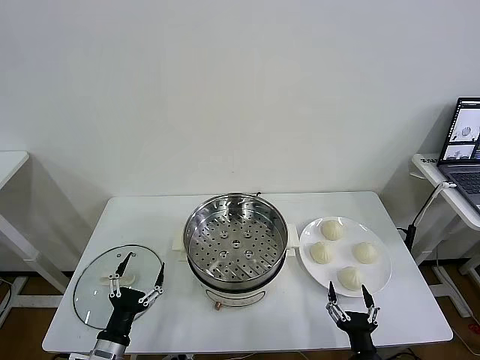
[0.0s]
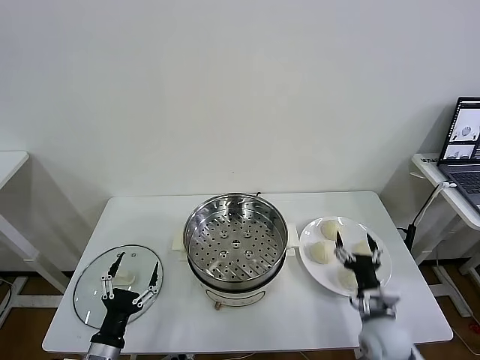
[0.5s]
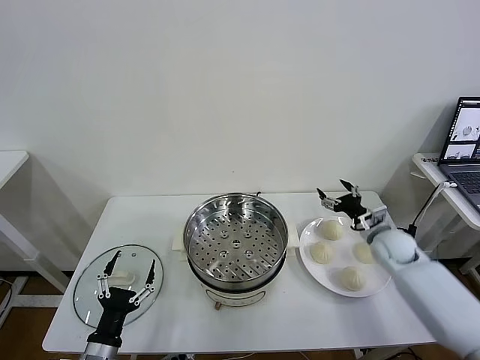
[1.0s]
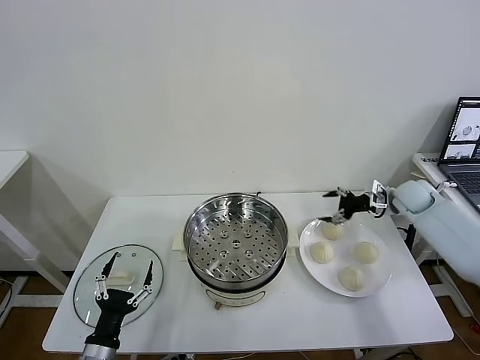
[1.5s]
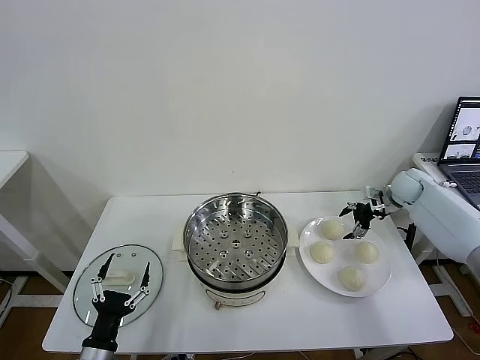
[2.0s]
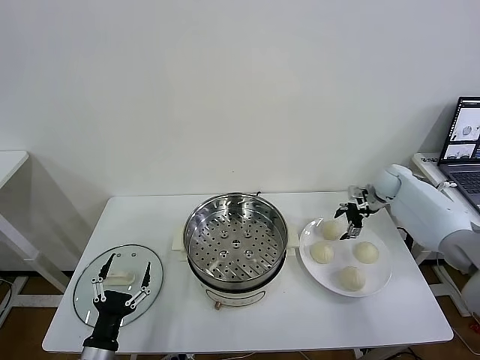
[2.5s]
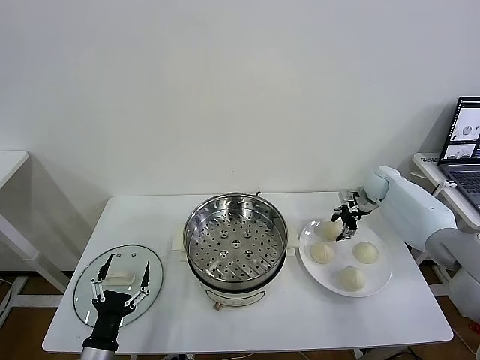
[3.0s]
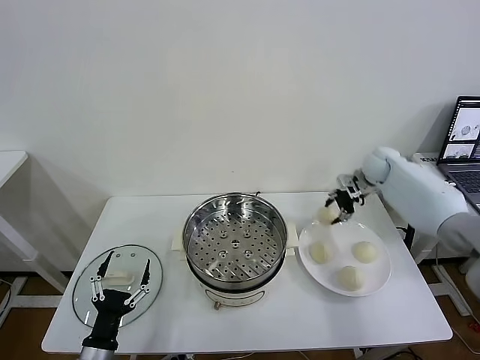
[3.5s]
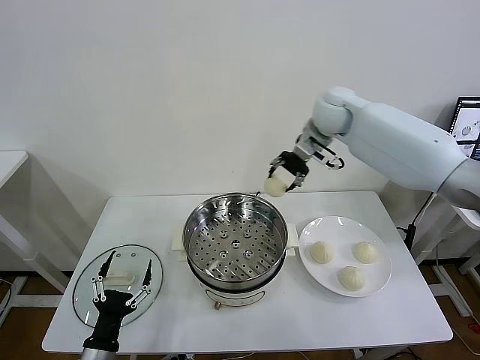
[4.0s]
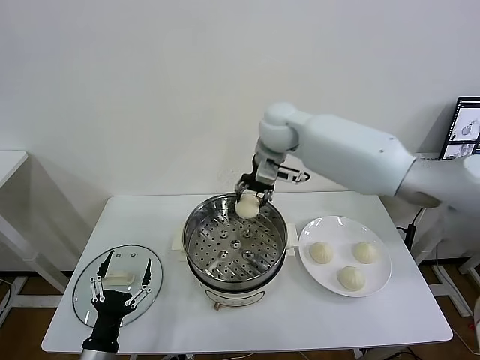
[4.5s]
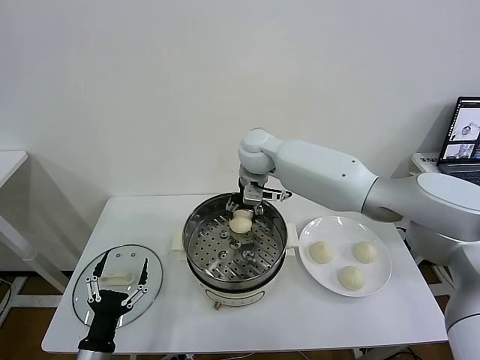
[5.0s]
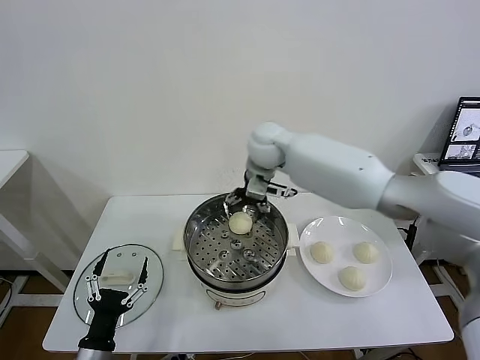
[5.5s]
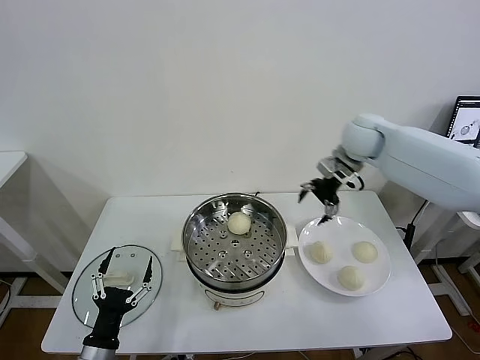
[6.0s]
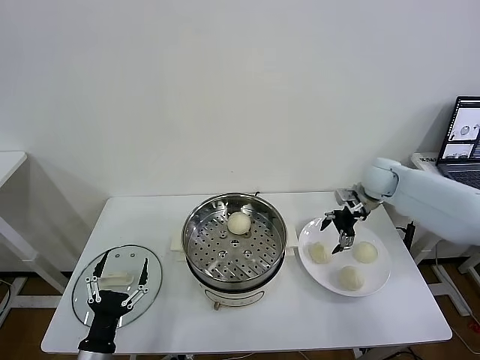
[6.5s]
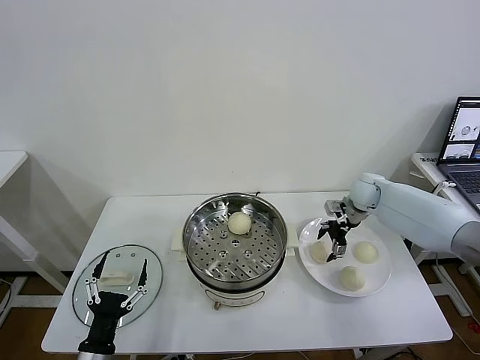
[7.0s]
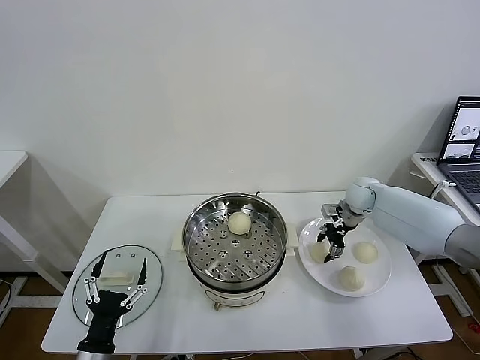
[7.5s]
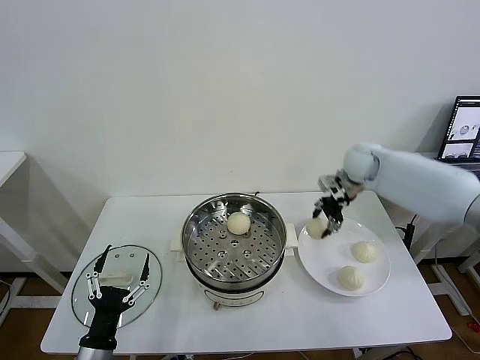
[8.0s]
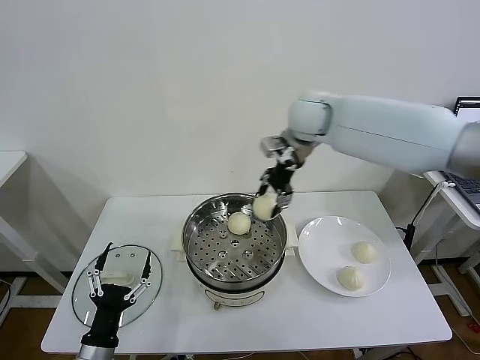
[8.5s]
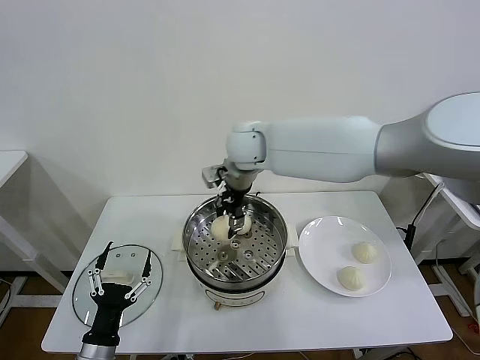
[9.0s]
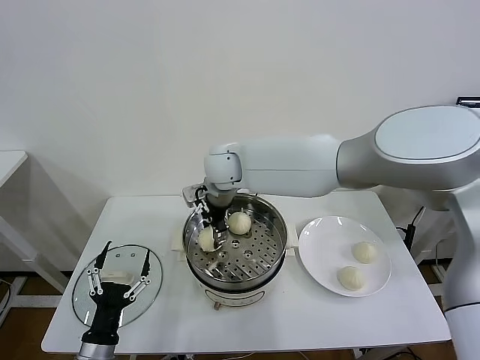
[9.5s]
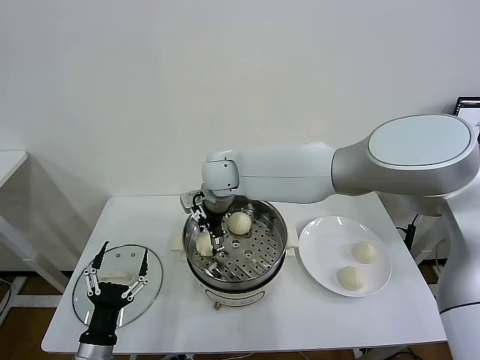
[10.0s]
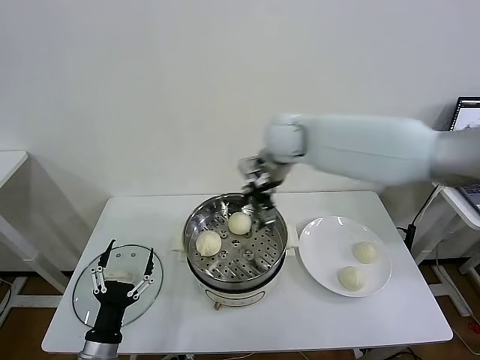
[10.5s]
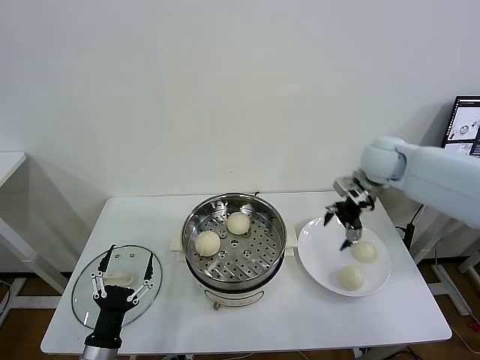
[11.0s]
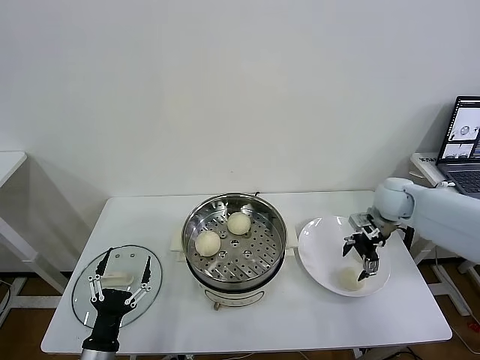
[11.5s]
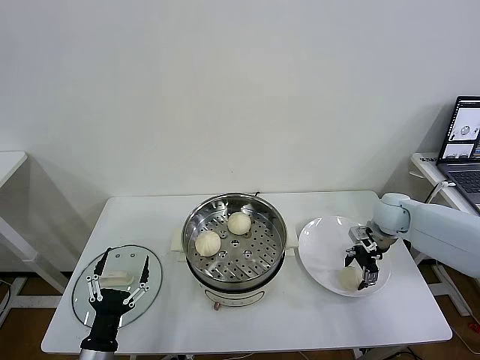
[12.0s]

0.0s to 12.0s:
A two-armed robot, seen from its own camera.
Task of the whole recording: take steamed baozi put them in steamer then cover it.
Step, 0.0s to 3.0s: Grasp the baozi in the plate with right gripper.
Step, 3.5s to 5.0s: Place the baozi on the steamer with right gripper.
Step, 6.0s to 7.5s: Grasp the baozi in the plate with right gripper.
Step, 8.0s to 10.0s: Place the baozi on the steamer with right gripper.
2.0s to 4.0s: The right gripper is displaced to the left and upward by about 35 cm, and closes.
4.0s to 6.0s: The right gripper goes approximately 15 cm to the right and downward, and opens.
6.0s to 8.0s: The right gripper travels downward and back again, some 15 cm each way, and closes.
8.0s to 10.0s: The right gripper moves to the left, some 30 cm, and opens.
10.0s to 12.0s: The right gripper shifts roughly 40 cm to the right.

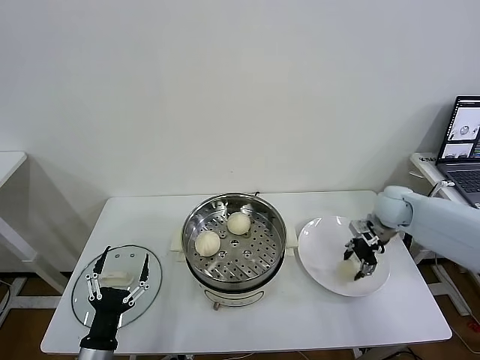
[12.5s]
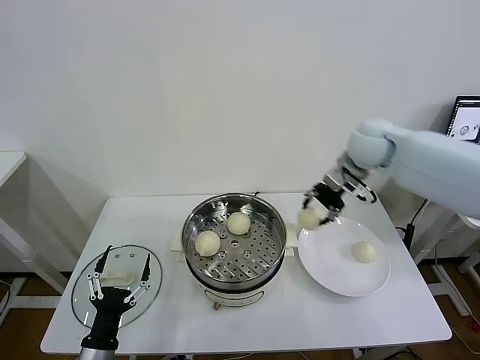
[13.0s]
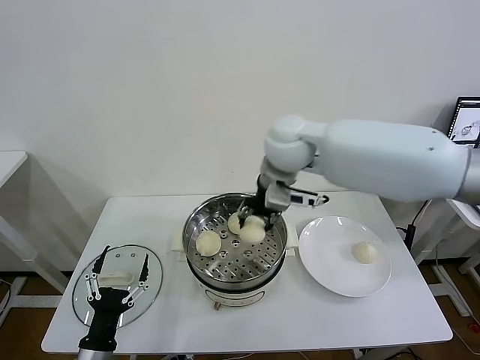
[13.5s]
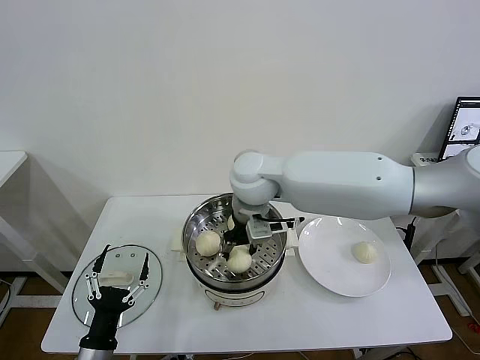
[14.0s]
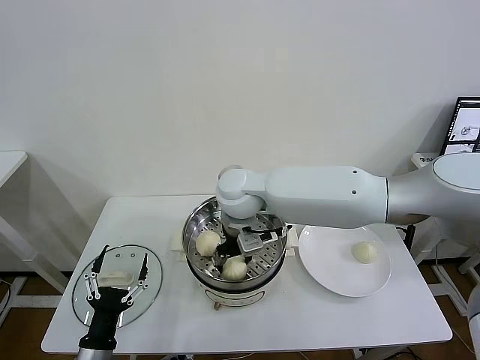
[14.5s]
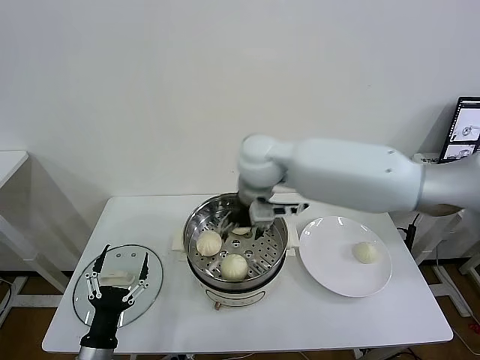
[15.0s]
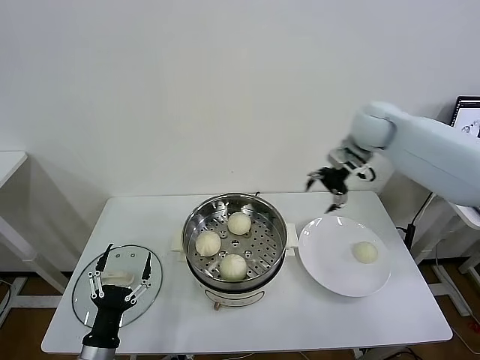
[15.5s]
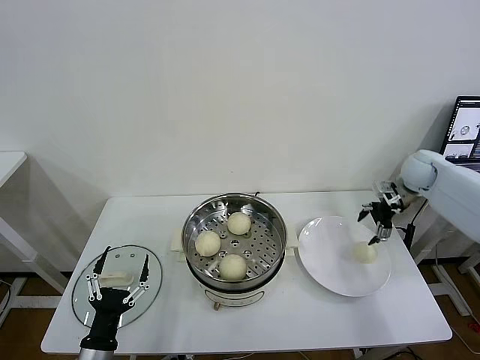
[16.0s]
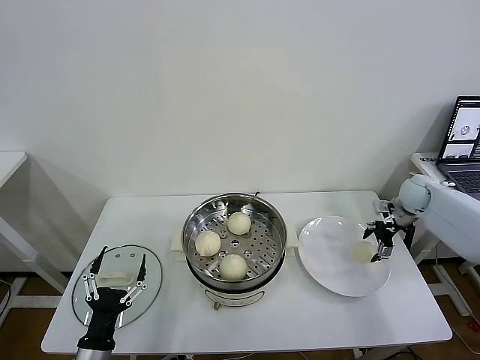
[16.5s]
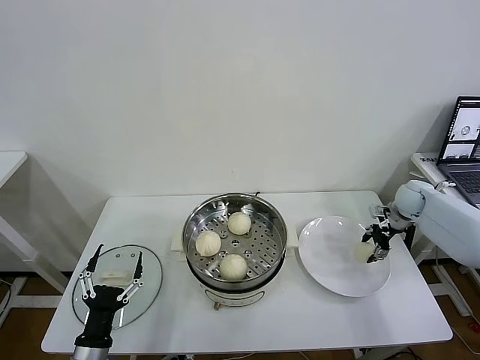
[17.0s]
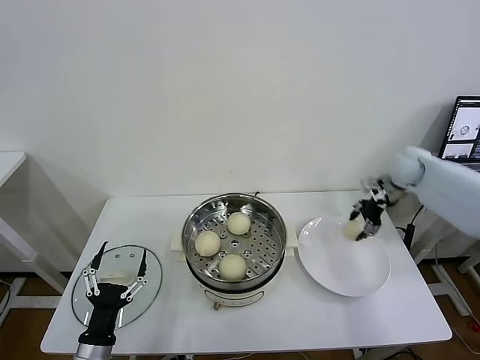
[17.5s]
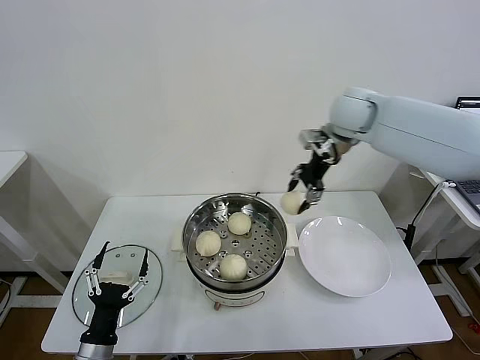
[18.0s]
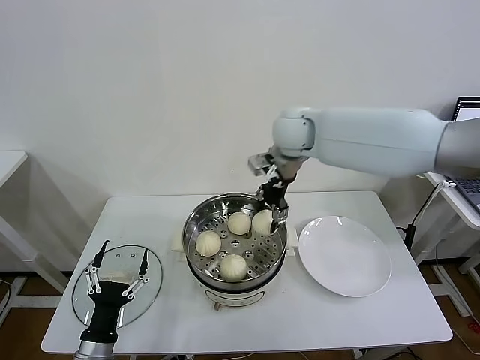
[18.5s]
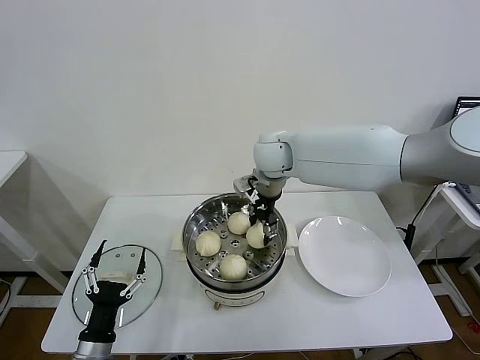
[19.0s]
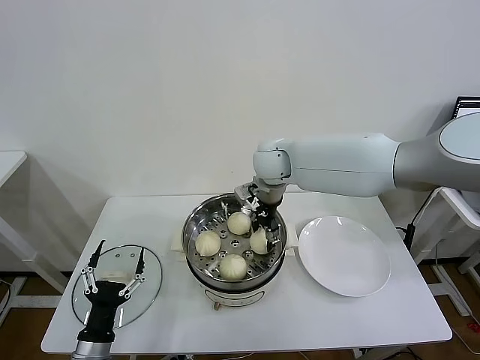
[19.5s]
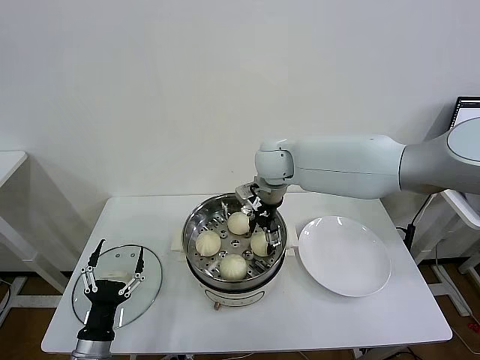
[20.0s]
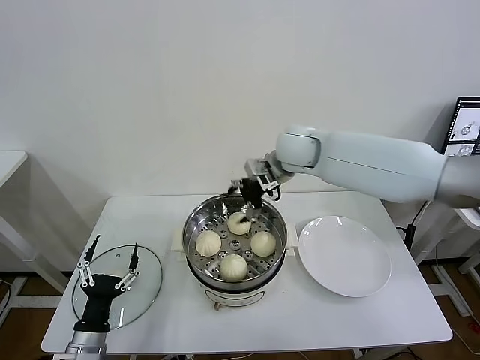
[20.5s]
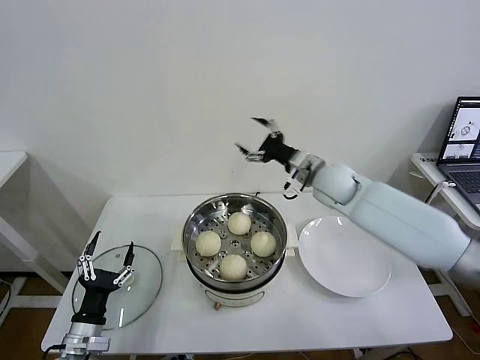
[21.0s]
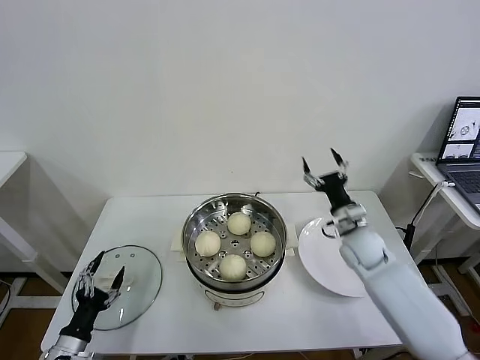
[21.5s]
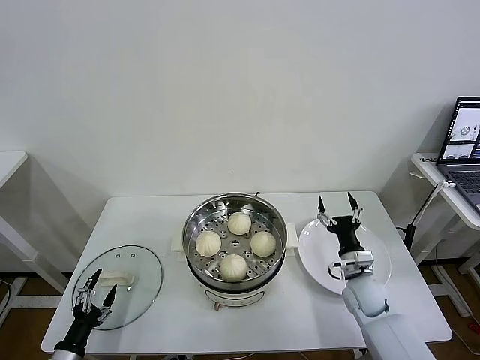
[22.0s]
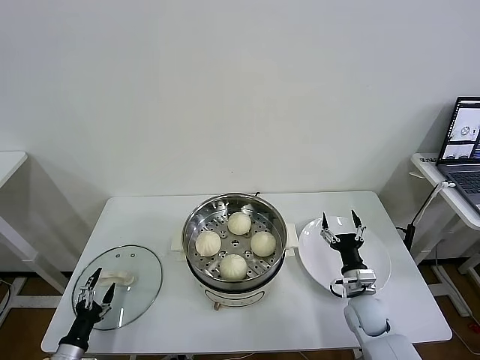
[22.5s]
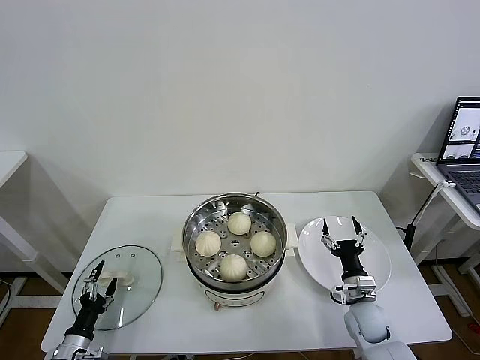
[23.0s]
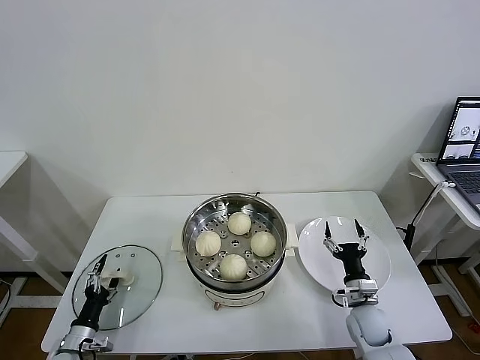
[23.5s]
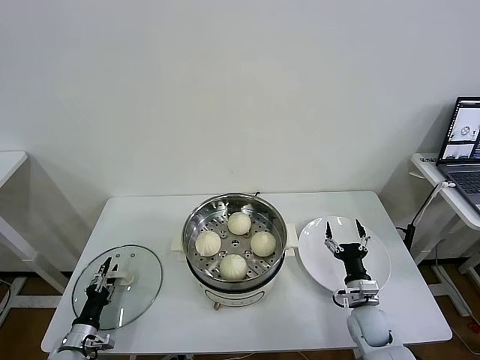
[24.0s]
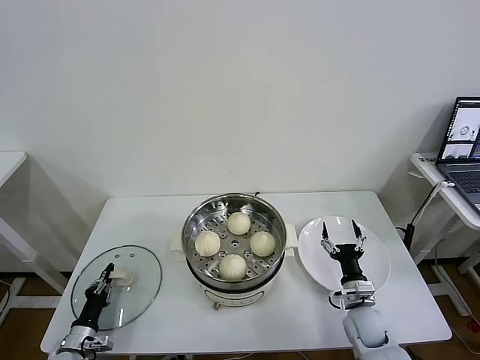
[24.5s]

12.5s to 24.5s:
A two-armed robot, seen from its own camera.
Task of the whole recording: take steamed baozi put them in steamer then cover it.
Step, 12.5s to 14.5s: Place the baozi on the steamer with right gripper.
Step, 15.0s to 17.0s: Grasp the baozi in the plate with right gripper.
Step, 17.5s to 20.0s: Place the baozi on the steamer with right gripper.
12.5s to 14.5s: The right gripper heads to the left, covering about 35 cm, and opens its fingers.
14.5s to 16.5s: The right gripper heads to the right, covering approximately 50 cm, and opens up.
16.5s to 18.5s: The right gripper shifts about 40 cm to the left and upward, and closes its fingers.
18.5s to 20.5s: The right gripper opens its fingers.
20.5s to 22.5s: The left gripper travels to the left and downward by roughly 15 cm; the right gripper is displaced downward, backward and to the right by about 50 cm.
22.5s to 24.5s: The left gripper heads forward, covering roughly 5 cm, and closes.

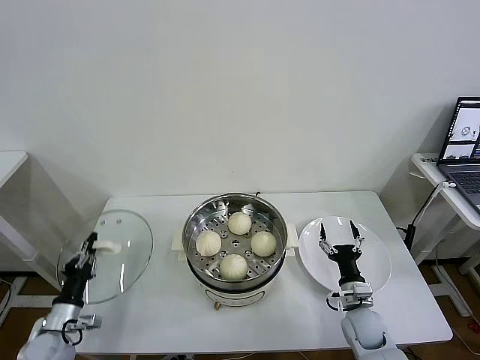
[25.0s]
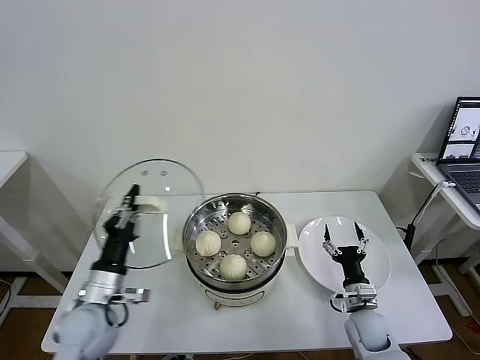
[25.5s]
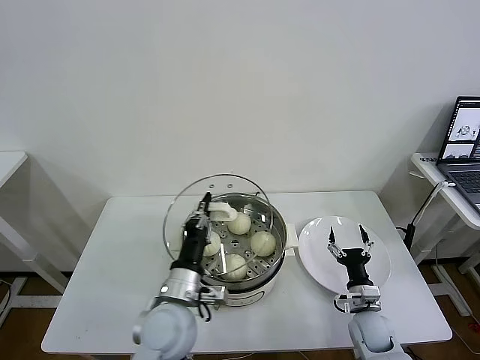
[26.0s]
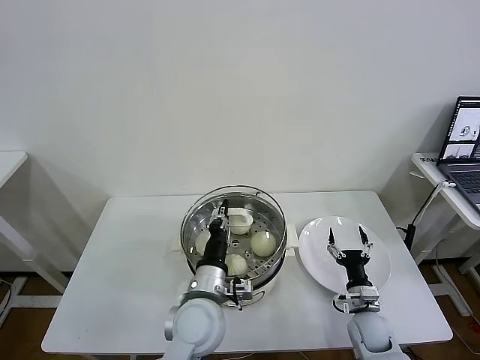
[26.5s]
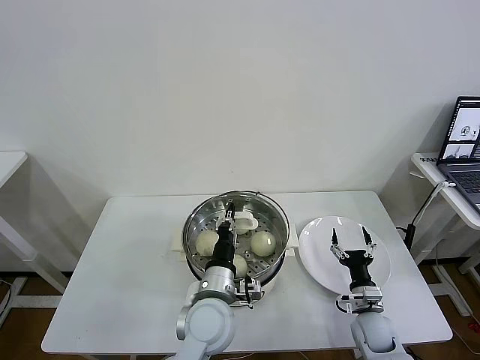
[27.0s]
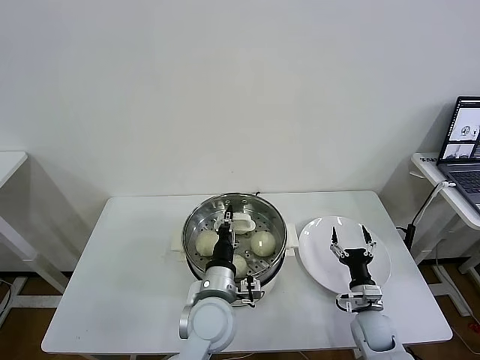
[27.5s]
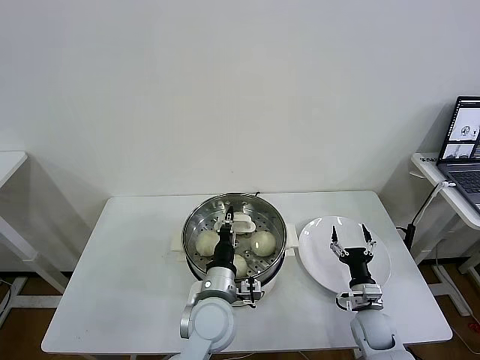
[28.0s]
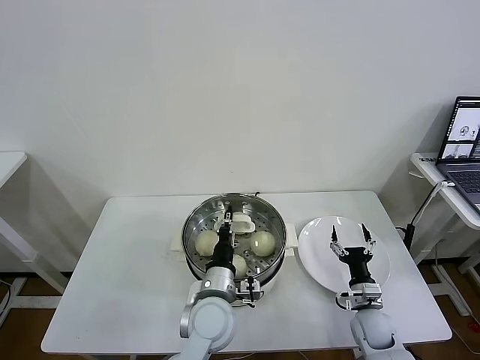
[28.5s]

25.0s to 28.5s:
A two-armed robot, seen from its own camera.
Task of the whole recording: take steamed baozi put them in steamer then cover it.
25.0s to 27.0s: The left gripper moves to the right, roughly 35 cm.
27.0s to 28.5s: The grippers make only small movements.
